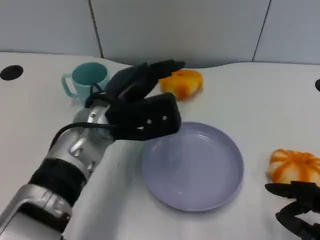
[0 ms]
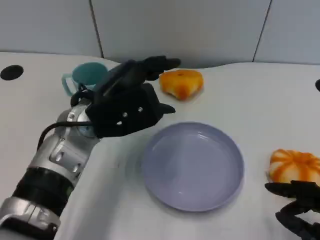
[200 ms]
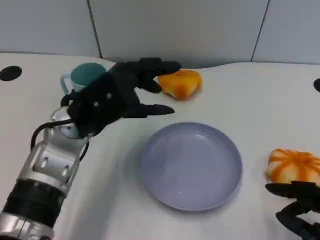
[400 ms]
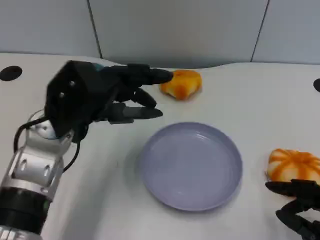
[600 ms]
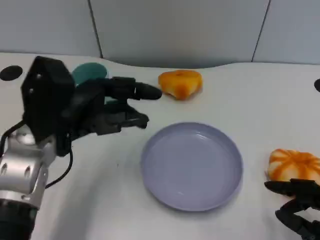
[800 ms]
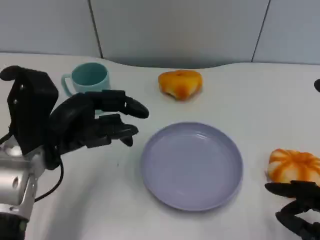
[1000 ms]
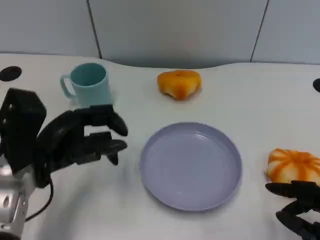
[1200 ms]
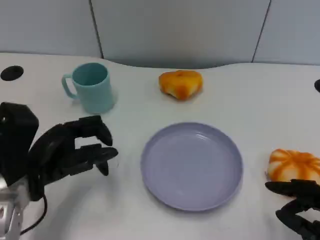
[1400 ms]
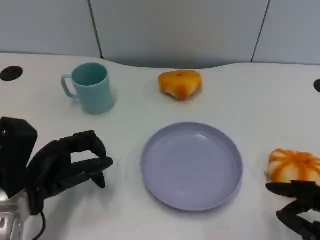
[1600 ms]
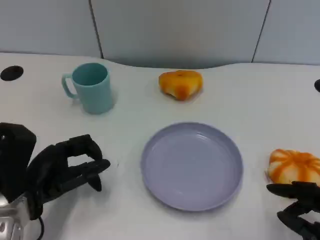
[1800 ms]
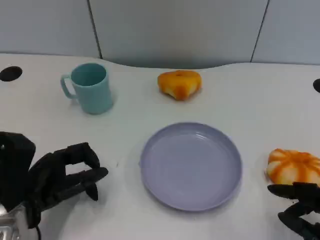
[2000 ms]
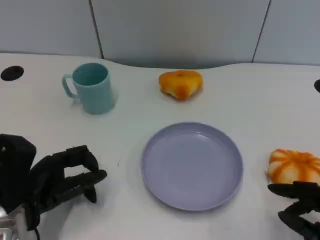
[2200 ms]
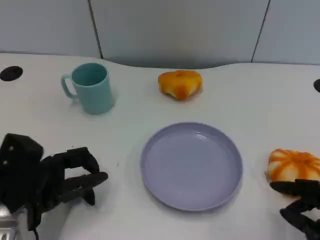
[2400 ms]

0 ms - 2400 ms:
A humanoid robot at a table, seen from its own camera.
Task of the whole recording: Grasp the bread from the table and place it into the plate.
0 ms - 1200 ms: The left hand moves to the left and backward, about 10 cm.
1200 ms - 2400 ms: The left hand changes place by about 5 cm.

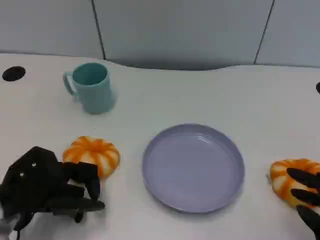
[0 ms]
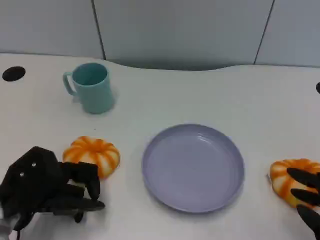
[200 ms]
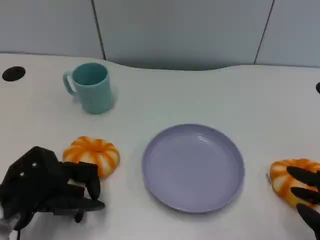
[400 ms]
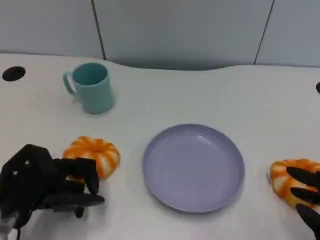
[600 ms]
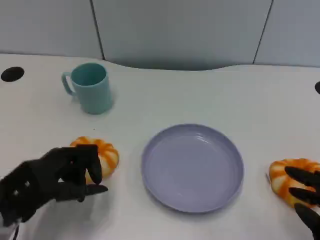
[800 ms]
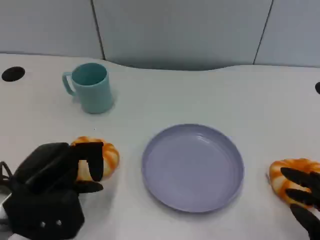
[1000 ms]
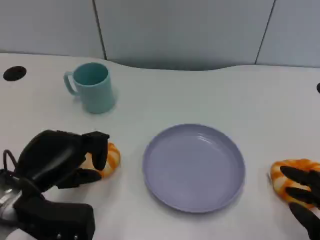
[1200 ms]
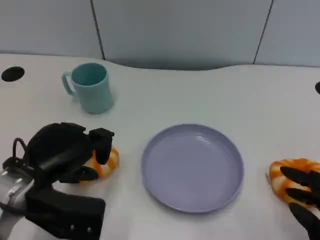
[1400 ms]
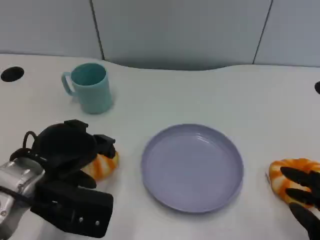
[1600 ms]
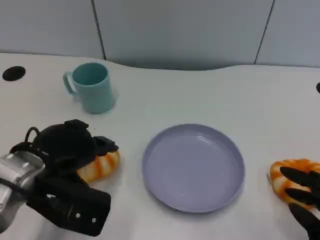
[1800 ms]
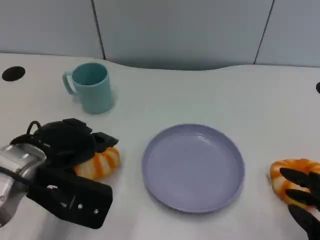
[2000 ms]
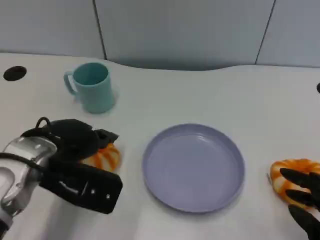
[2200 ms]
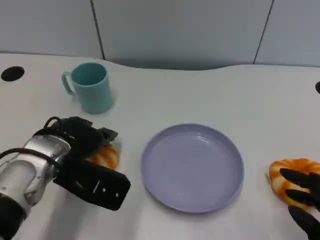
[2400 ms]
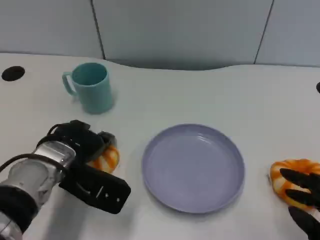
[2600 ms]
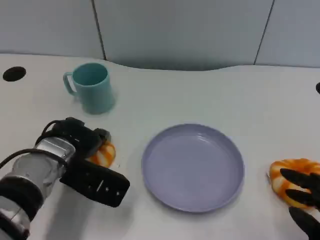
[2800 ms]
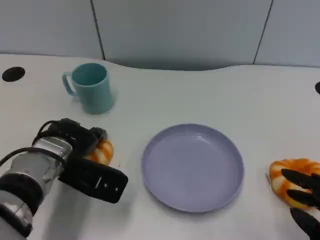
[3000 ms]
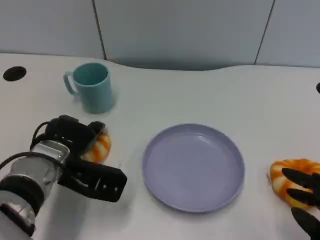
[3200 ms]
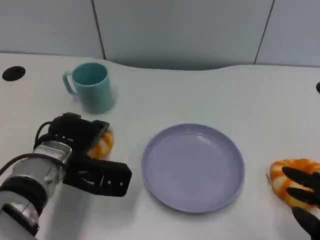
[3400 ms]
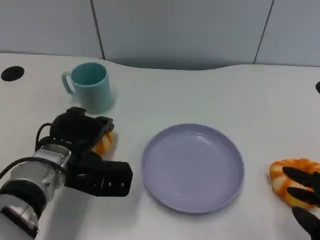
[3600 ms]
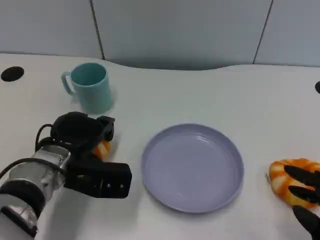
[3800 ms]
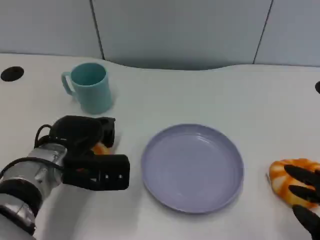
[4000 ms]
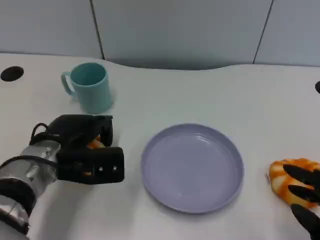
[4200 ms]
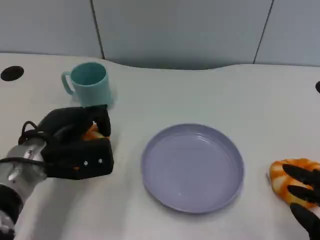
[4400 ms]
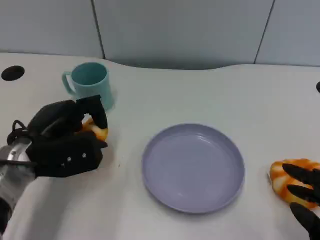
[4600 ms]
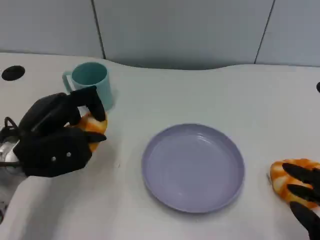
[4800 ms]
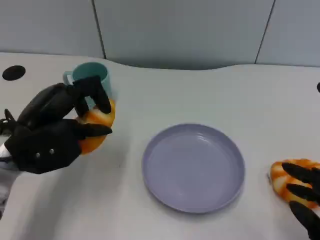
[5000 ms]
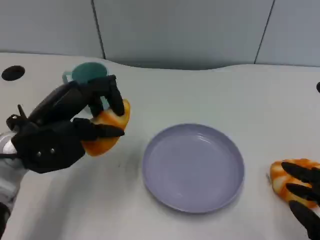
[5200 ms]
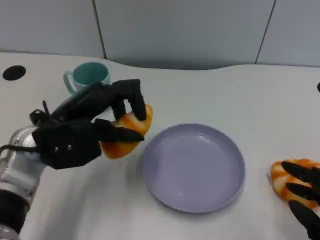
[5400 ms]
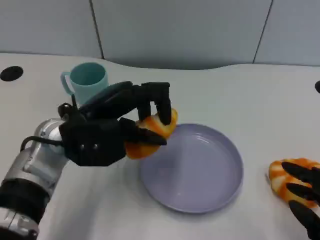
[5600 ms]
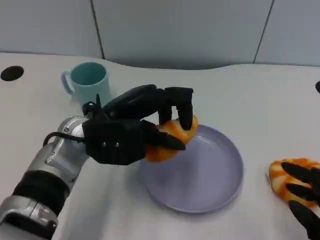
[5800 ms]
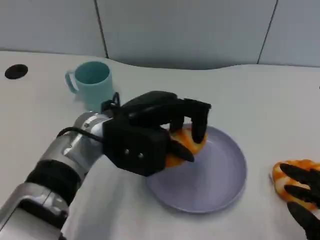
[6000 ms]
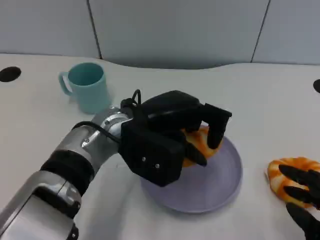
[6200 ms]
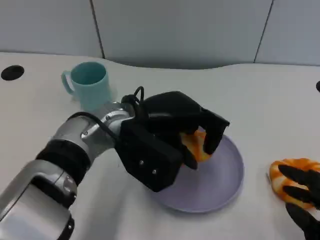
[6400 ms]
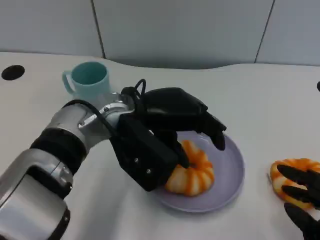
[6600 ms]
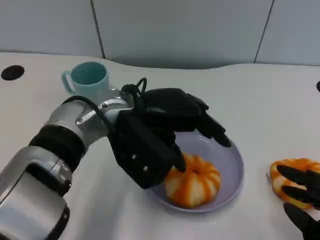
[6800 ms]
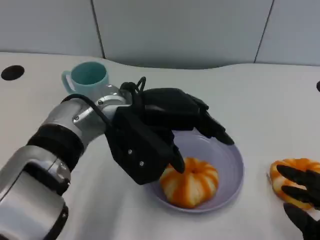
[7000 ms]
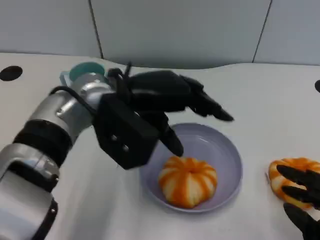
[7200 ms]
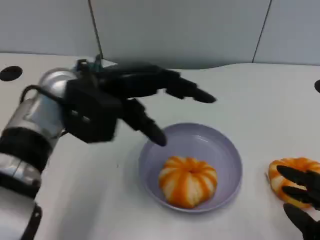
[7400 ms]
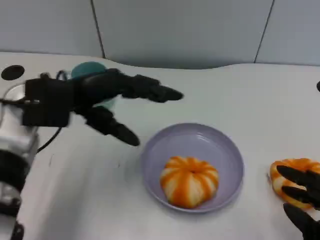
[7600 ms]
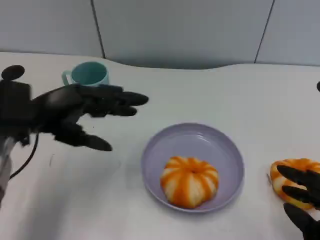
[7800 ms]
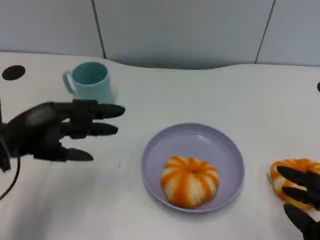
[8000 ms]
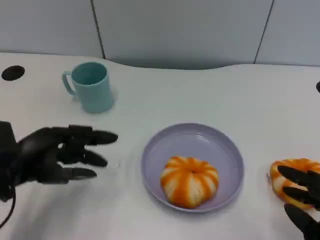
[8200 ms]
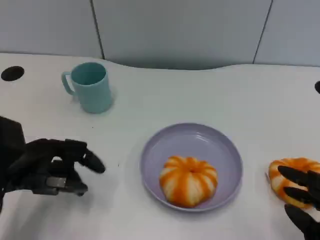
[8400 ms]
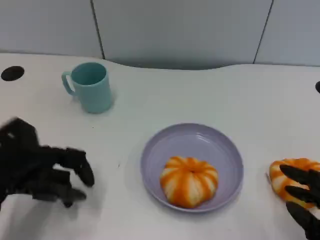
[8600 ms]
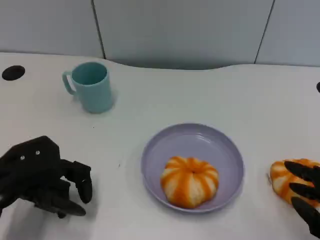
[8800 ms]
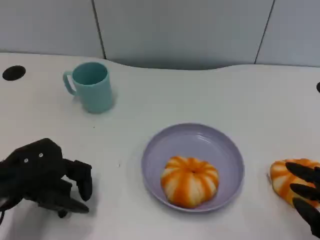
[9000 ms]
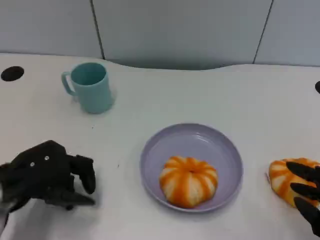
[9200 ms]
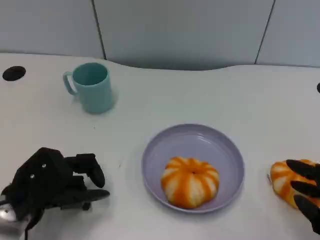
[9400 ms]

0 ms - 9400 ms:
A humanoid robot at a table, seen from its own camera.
Task of the whole recording: Grasp the bread from the table and place it into the plate.
0 ms - 1600 ms: The left hand travels upward by some 5 cm.
1600 ms - 3200 ms: The left hand shifts roughly 10 cm forward and downward.
3200 ms - 4800 ms: The left hand shifts by approximately 5 cm.
4800 ms - 6200 ms: The left hand shifts roughly 15 cm to the right.
6200 ms - 7800 ms: The left hand shifts roughly 15 cm to the left.
7800 ms - 9400 ms: The left hand goes roughly 10 cm downward and backward.
